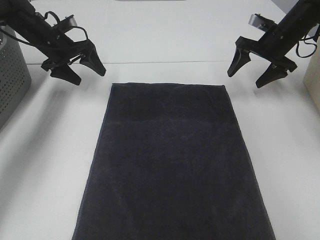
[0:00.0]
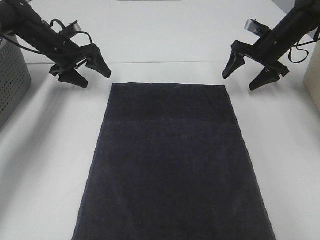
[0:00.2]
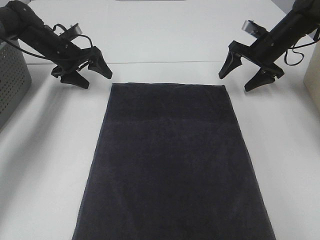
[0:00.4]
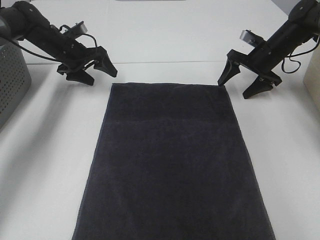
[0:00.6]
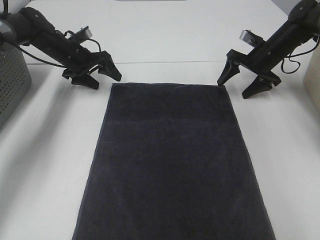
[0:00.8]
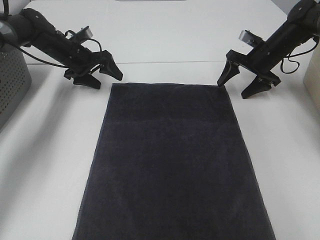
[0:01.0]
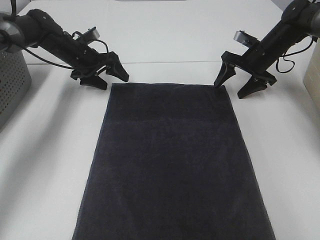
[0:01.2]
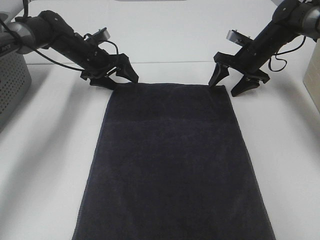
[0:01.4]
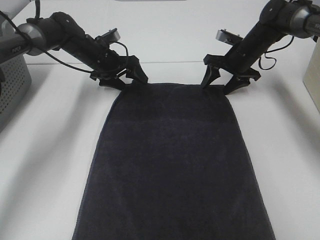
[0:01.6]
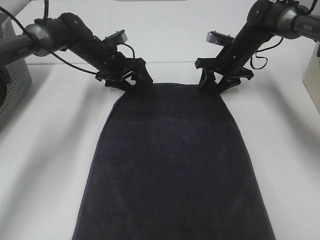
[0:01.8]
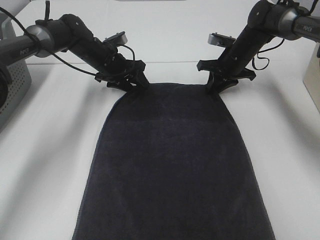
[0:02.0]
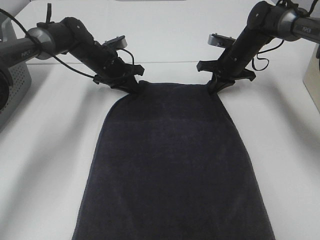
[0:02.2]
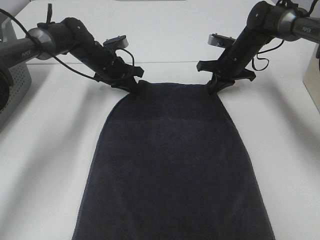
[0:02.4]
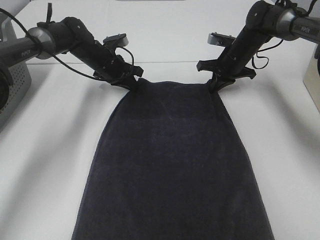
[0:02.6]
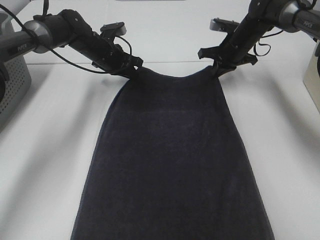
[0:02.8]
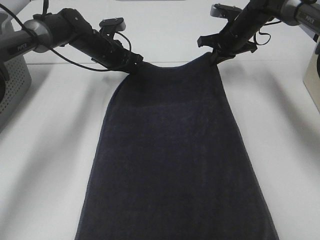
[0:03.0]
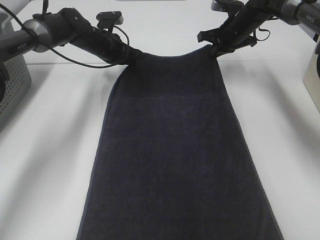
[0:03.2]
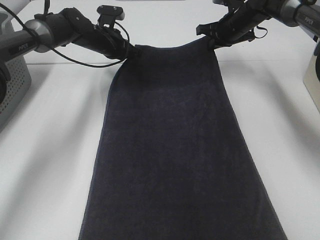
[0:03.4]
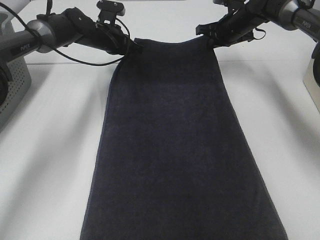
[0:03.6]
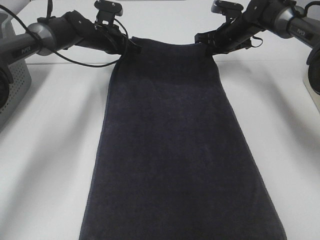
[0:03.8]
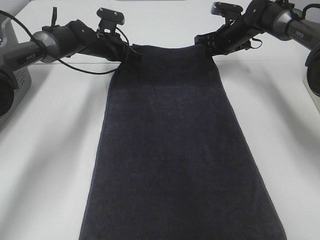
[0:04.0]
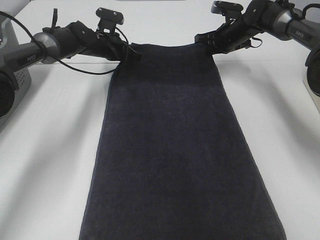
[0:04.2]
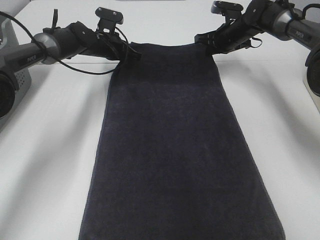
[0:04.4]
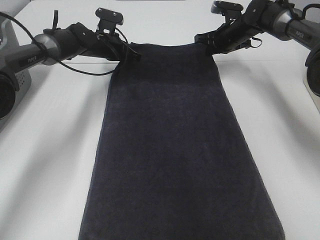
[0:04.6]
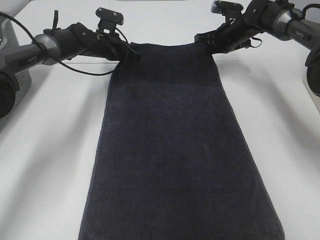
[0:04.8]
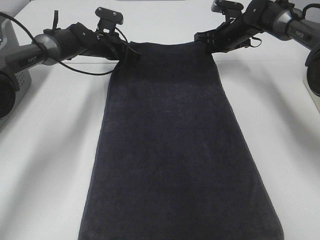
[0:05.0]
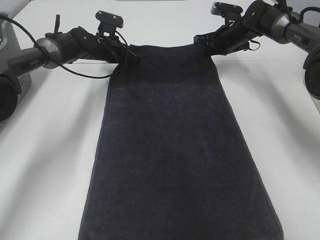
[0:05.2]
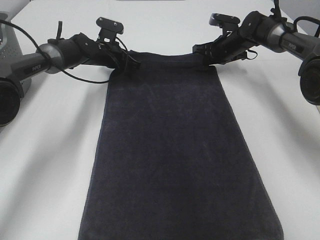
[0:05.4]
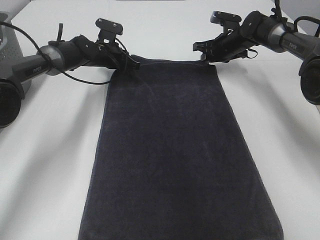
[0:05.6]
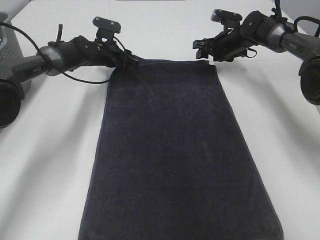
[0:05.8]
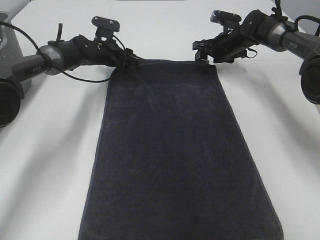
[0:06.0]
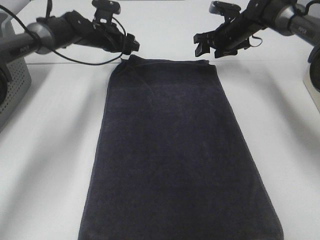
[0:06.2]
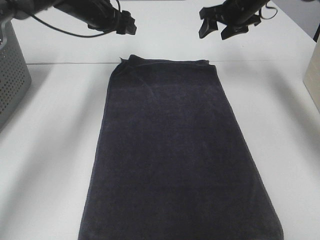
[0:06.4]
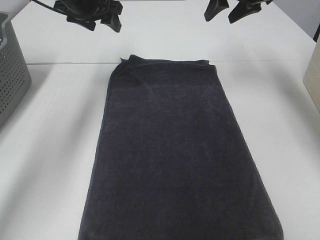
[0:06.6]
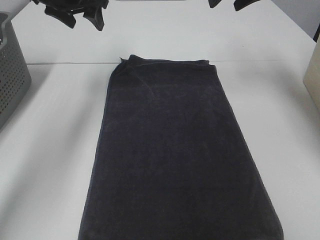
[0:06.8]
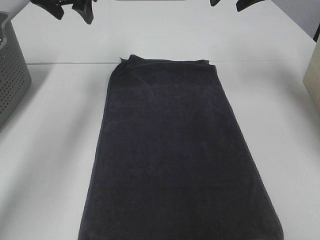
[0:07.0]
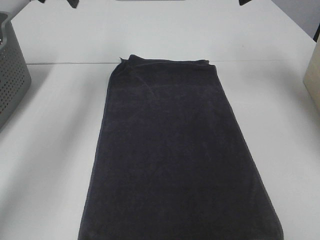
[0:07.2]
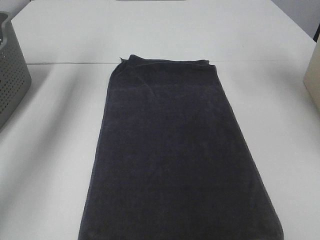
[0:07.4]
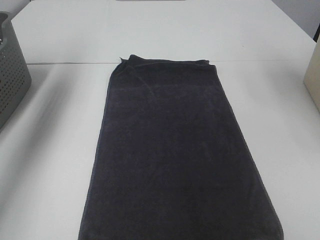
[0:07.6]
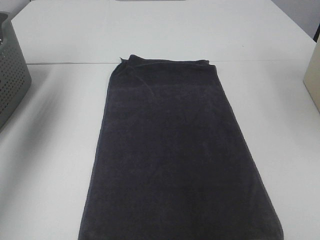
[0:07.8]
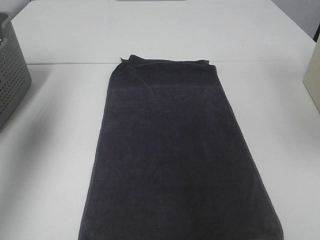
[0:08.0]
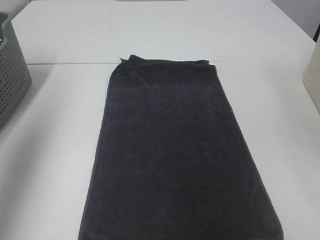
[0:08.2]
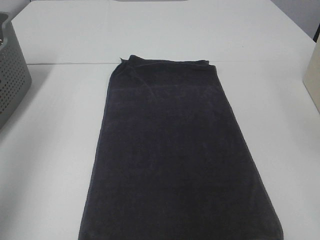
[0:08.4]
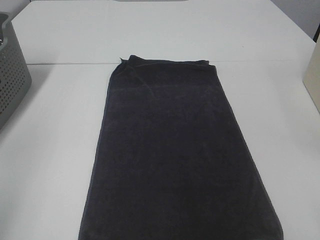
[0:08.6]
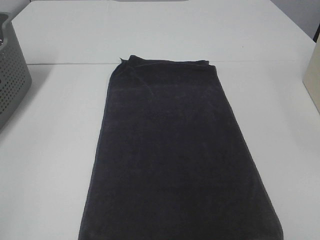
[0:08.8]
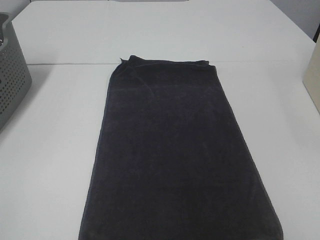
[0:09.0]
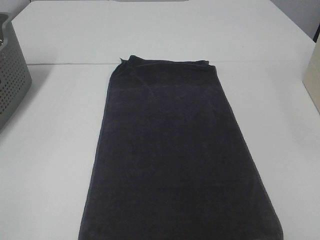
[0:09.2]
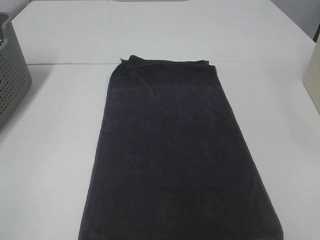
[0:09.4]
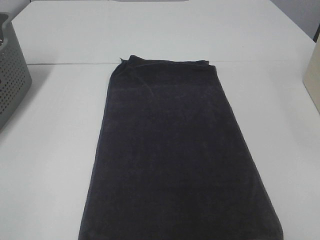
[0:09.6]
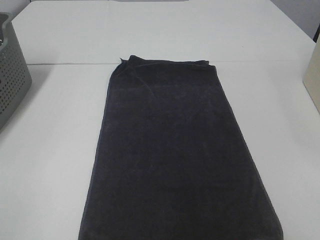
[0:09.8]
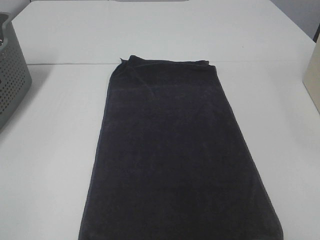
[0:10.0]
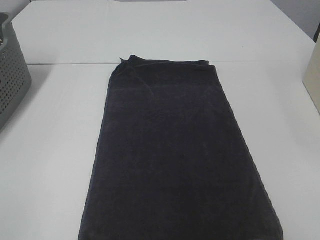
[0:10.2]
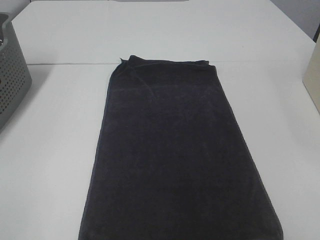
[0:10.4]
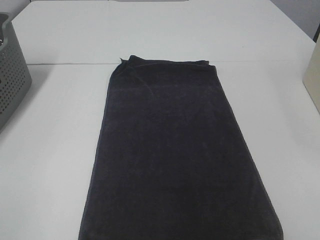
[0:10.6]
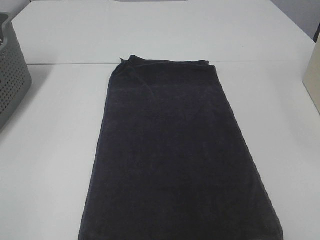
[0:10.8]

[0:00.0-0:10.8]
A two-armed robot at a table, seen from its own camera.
Task of the whole recording: Remove the towel and place it.
0:00.0 to 0:01.6: The left gripper moves to the right, approximately 10 cm, while the right gripper moves to the left, roughly 5 cm.
0:01.6 to 0:03.0: The left gripper closes up; the right gripper ends up about 5 cm from where it was, and closes up.
0:04.6 to 0:06.2: The left gripper opens, while the right gripper opens up.
0:06.2 to 0:07.8: The left gripper shifts some 40 cm upward, backward and to the left. The right gripper shifts approximately 35 cm upward and backward.
0:07.8 to 0:09.2: The grippers both shift backward by some 40 cm.

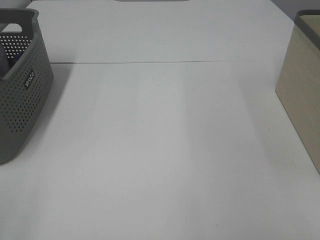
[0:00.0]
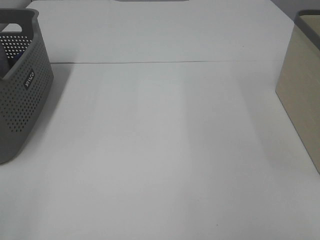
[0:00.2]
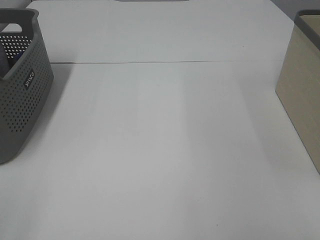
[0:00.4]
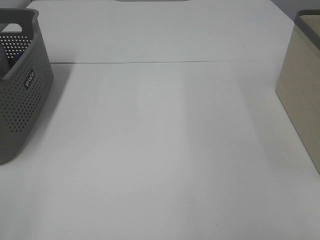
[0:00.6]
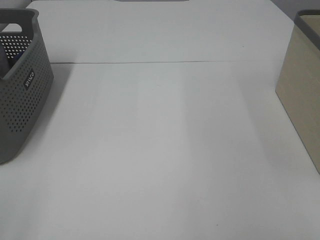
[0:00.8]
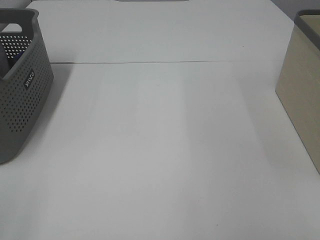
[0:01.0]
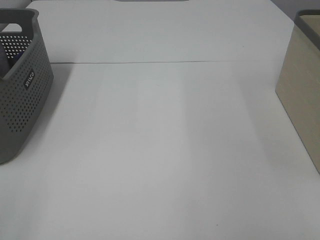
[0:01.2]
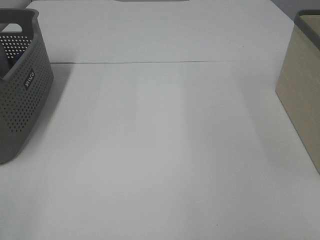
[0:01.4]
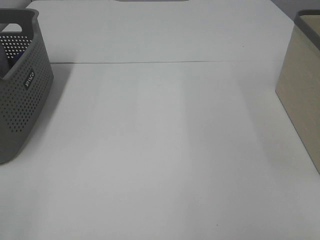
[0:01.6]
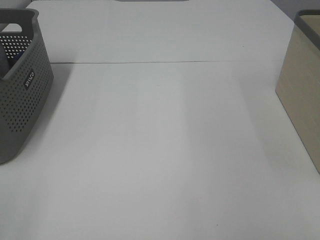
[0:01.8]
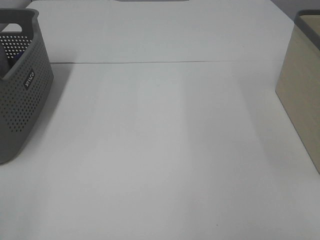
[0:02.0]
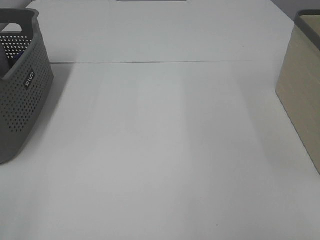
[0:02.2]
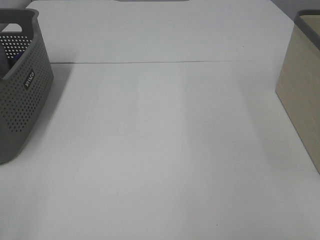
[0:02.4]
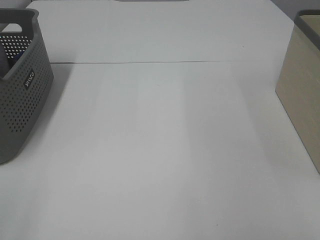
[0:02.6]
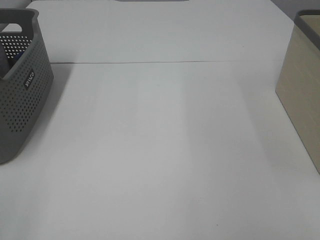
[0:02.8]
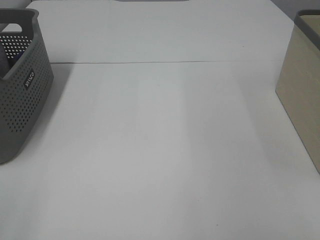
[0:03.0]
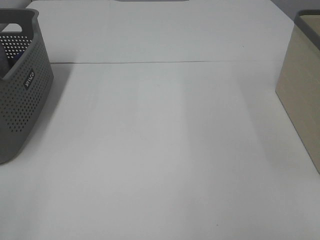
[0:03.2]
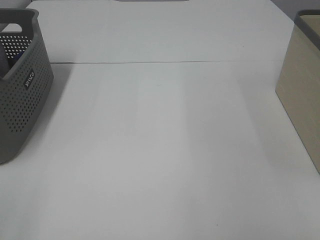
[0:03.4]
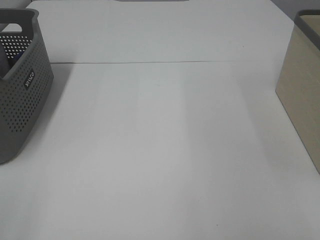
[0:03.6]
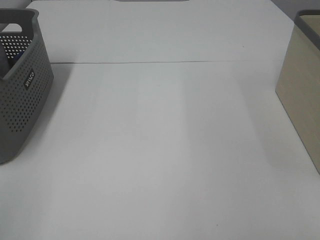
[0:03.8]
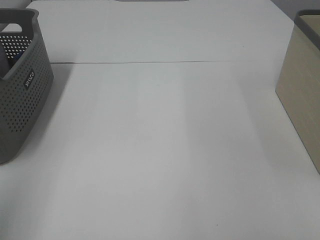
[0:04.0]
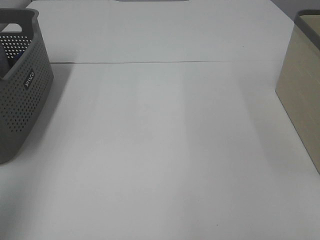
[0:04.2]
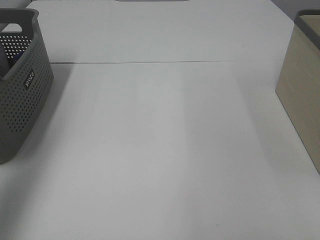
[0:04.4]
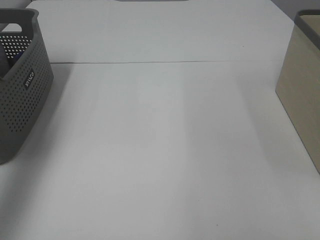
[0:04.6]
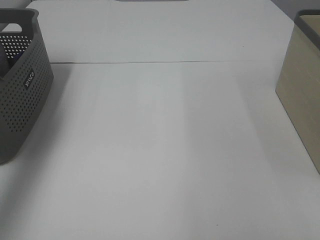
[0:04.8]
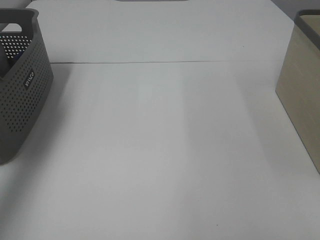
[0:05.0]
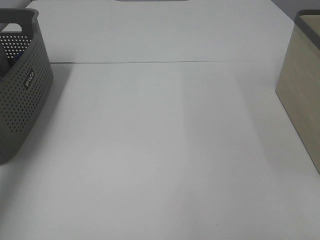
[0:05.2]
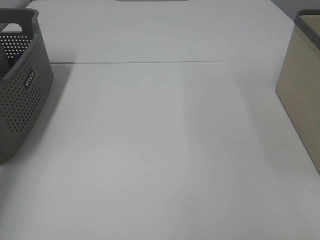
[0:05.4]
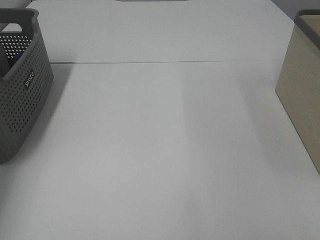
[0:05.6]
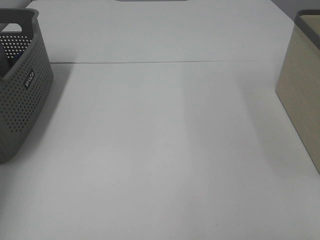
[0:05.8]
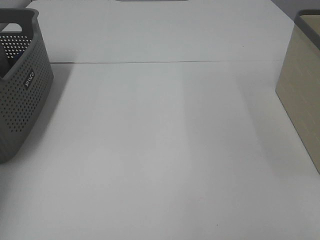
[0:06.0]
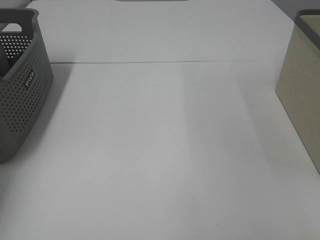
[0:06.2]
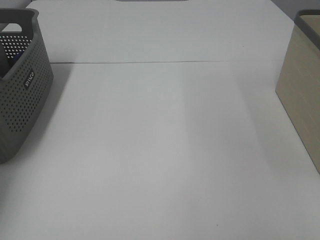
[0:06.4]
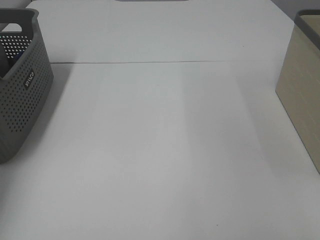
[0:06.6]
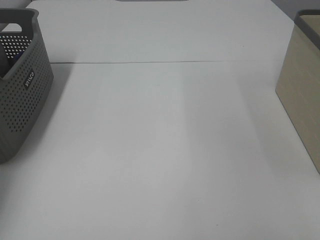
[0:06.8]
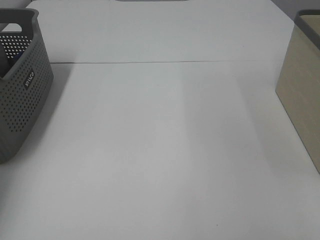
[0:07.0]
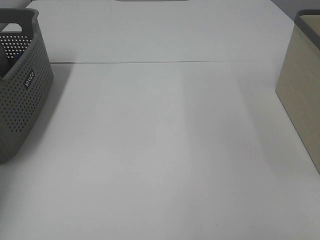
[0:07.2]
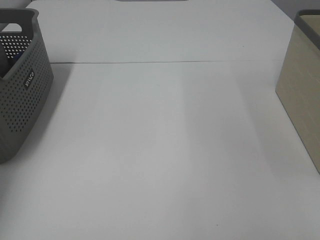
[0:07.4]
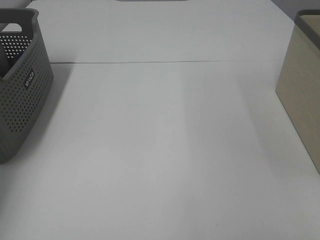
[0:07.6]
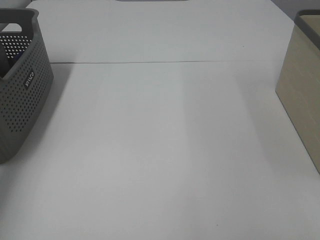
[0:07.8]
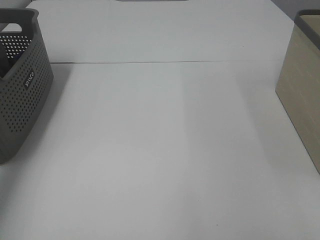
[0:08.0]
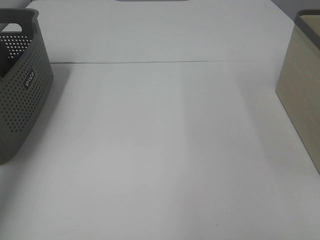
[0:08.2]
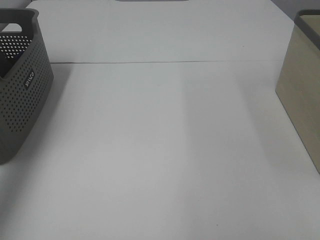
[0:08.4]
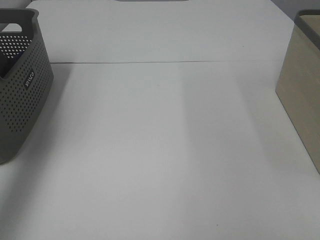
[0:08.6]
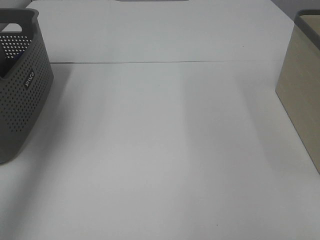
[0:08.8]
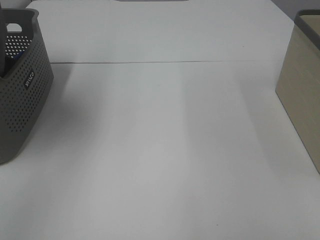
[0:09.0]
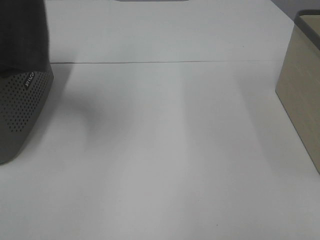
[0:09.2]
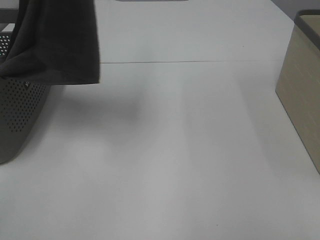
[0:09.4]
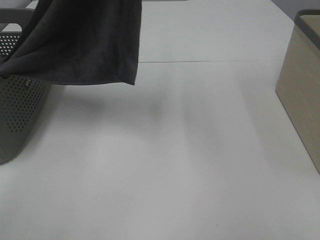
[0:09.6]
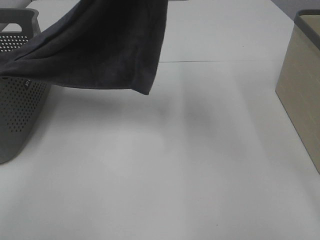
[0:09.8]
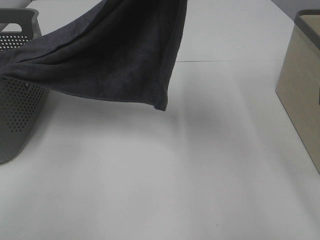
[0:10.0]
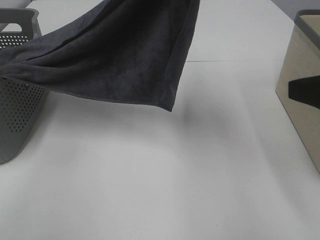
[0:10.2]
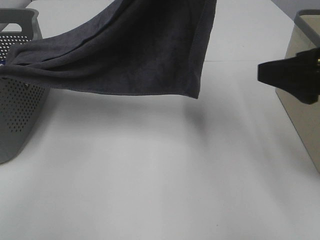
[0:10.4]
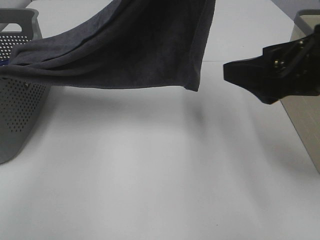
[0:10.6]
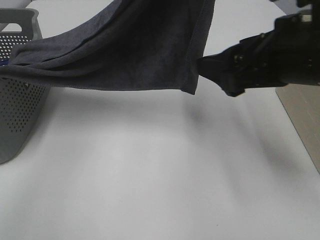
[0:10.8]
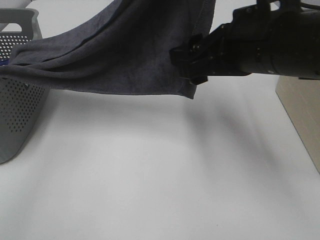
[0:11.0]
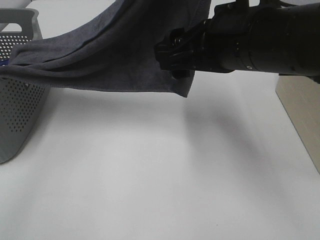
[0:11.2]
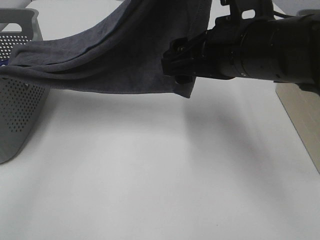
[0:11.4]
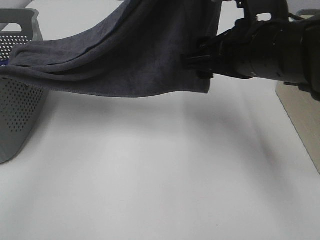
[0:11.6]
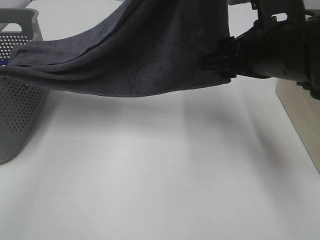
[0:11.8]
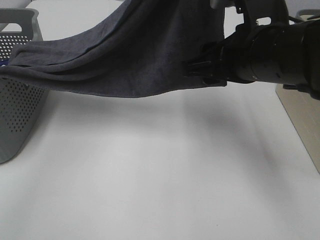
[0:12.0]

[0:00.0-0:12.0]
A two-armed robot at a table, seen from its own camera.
Task of the whole recording: Remove the towel and place it.
0:00.0 to 0:03.0: Both grippers stay about where they are.
0:03.0 to 0:04.4: The left gripper goes about 25 cm forward and upward.
0:04.4 to 0:06.0: The left gripper heads forward and downward, covering about 30 cm.
0:07.6 to 0:09.0: The left gripper is displaced upward, backward and to the right by roughly 35 cm.
0:09.0 to 0:10.4: The right gripper heads forward, covering about 20 cm; the left gripper heads to the right, covering about 25 cm.
0:10.4 to 0:12.0: The right gripper travels to the left and forward by approximately 10 cm.
